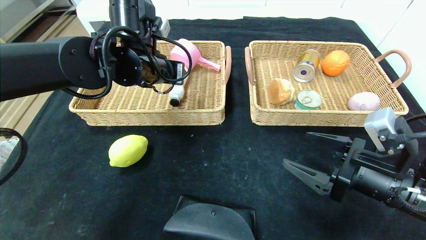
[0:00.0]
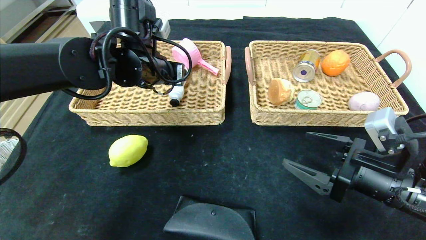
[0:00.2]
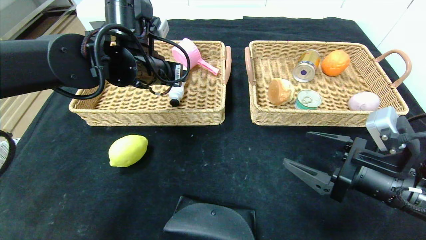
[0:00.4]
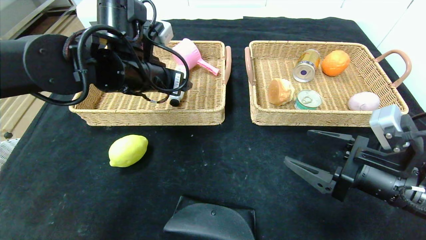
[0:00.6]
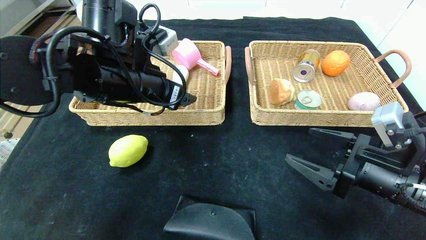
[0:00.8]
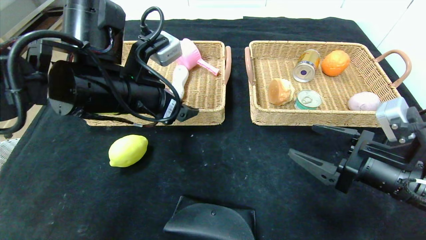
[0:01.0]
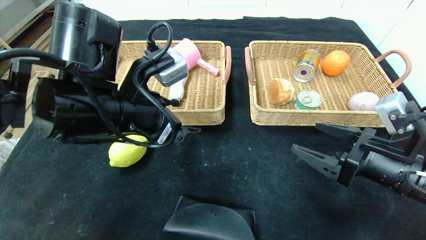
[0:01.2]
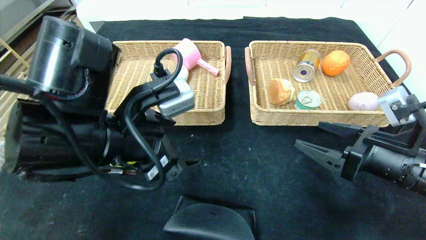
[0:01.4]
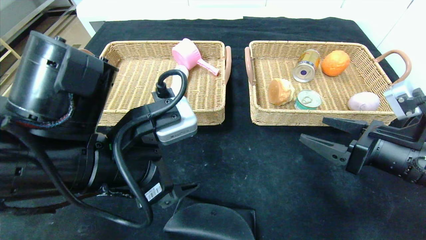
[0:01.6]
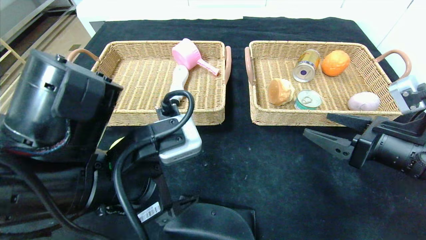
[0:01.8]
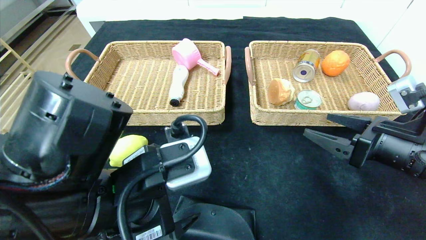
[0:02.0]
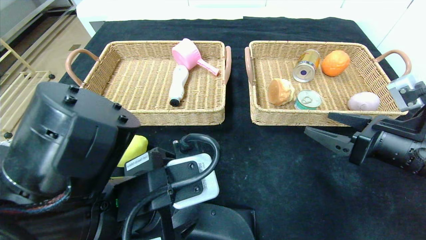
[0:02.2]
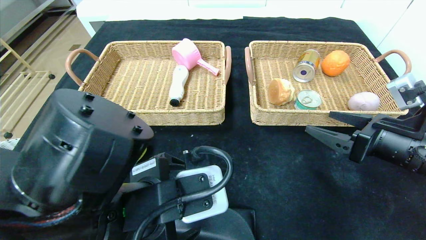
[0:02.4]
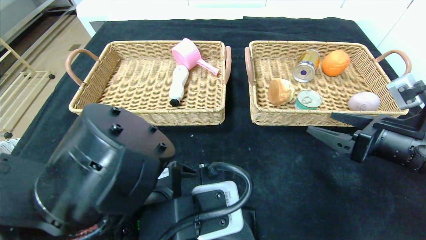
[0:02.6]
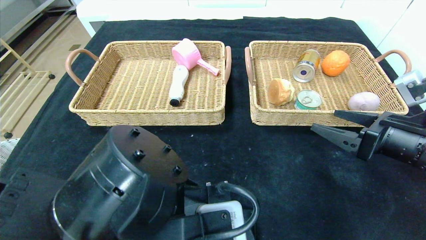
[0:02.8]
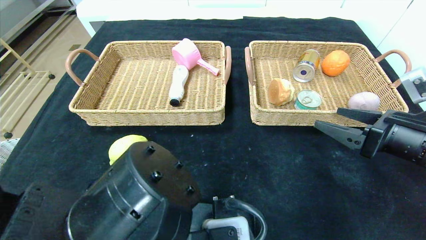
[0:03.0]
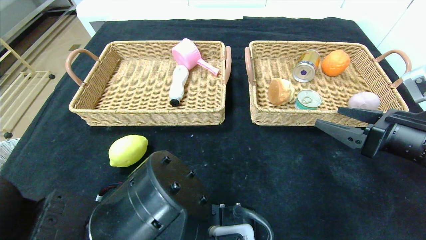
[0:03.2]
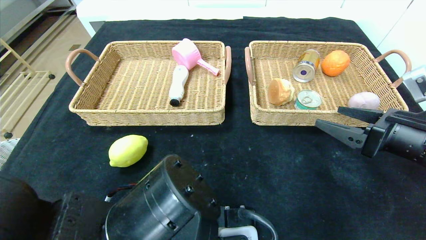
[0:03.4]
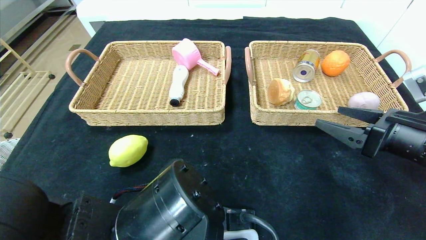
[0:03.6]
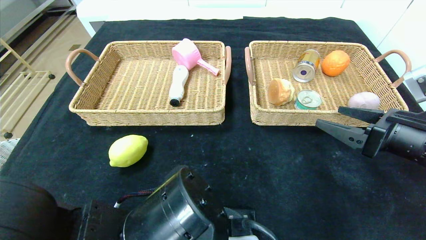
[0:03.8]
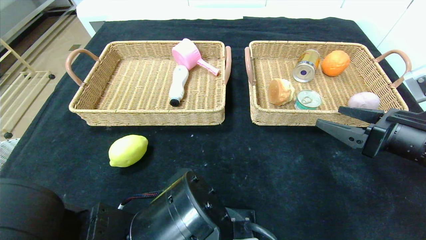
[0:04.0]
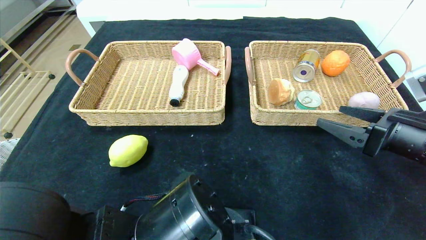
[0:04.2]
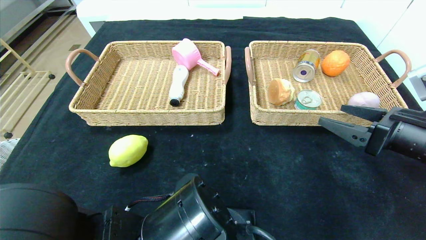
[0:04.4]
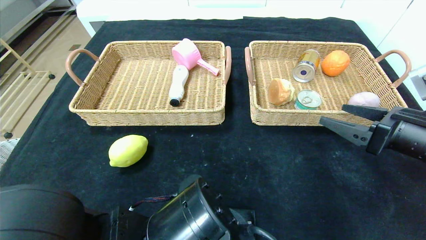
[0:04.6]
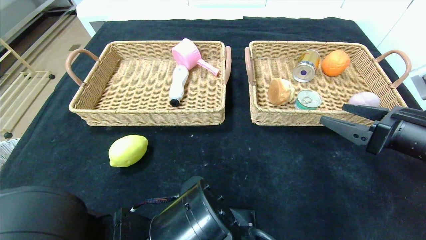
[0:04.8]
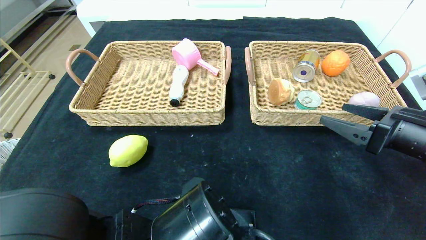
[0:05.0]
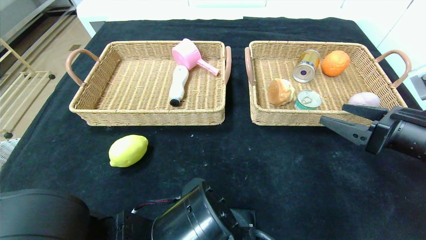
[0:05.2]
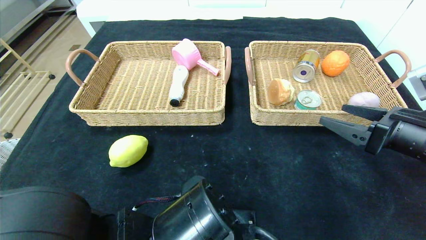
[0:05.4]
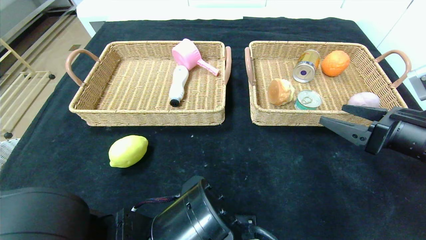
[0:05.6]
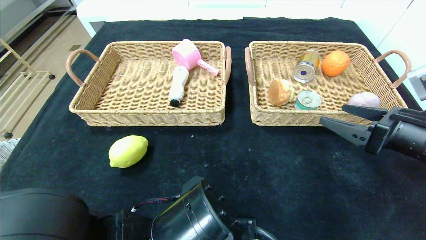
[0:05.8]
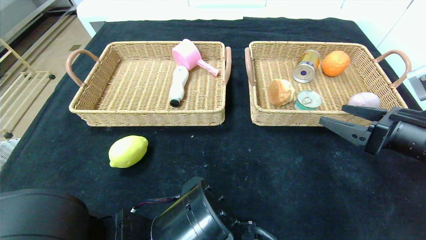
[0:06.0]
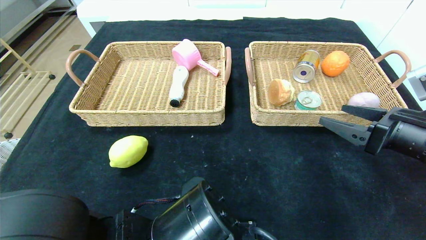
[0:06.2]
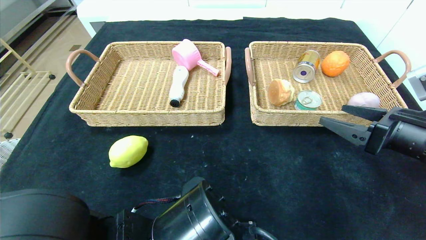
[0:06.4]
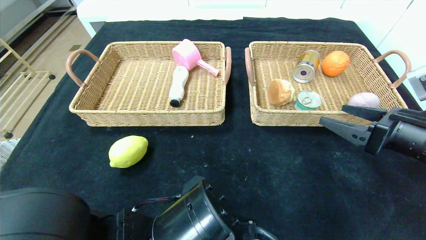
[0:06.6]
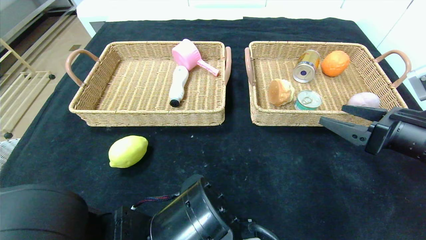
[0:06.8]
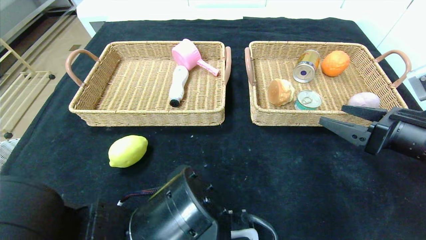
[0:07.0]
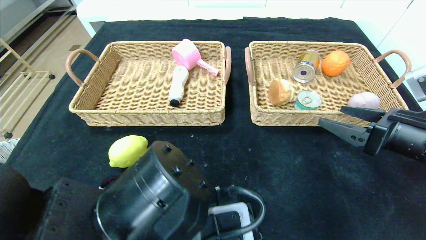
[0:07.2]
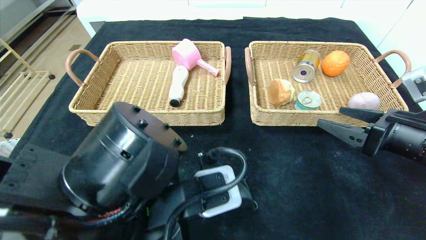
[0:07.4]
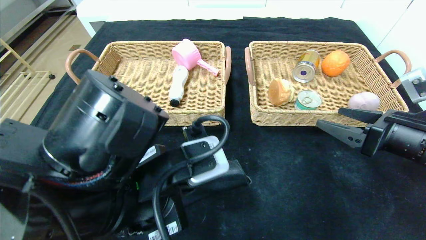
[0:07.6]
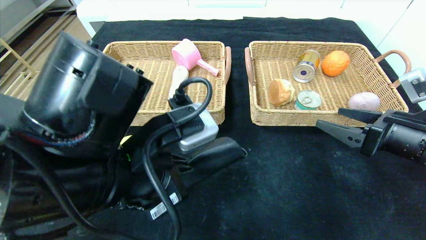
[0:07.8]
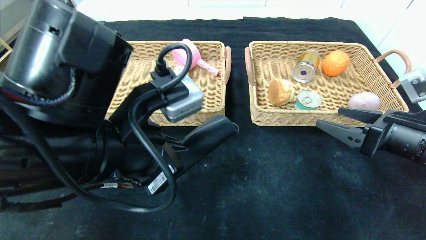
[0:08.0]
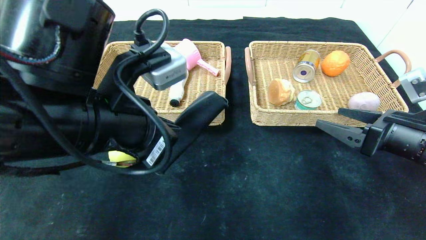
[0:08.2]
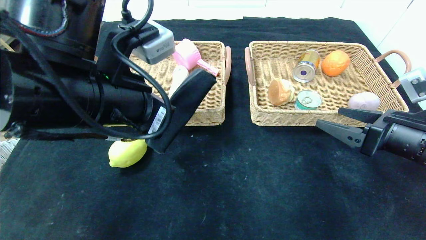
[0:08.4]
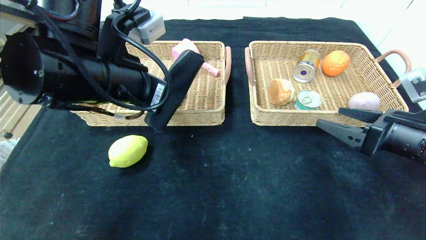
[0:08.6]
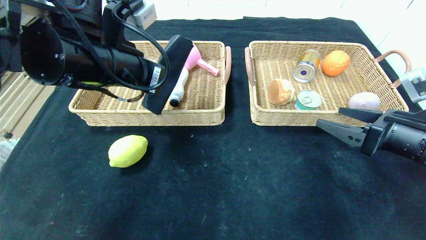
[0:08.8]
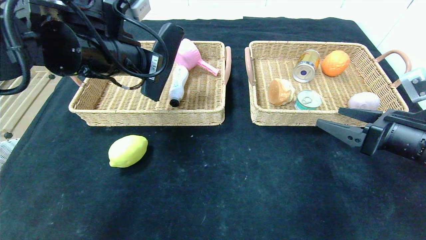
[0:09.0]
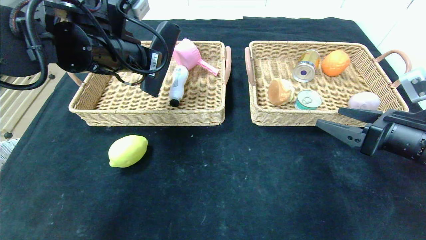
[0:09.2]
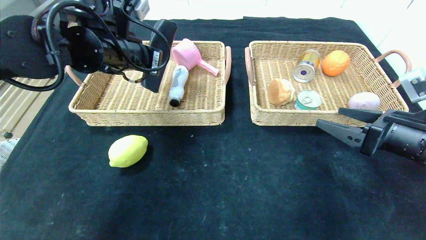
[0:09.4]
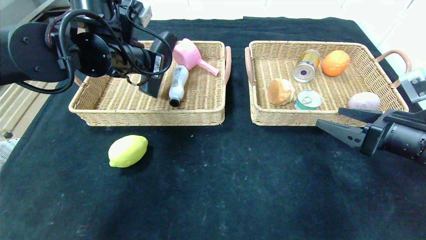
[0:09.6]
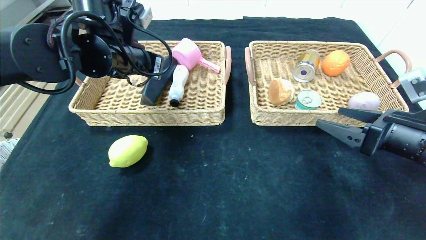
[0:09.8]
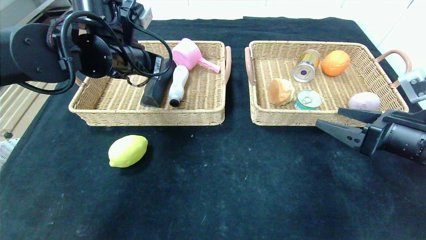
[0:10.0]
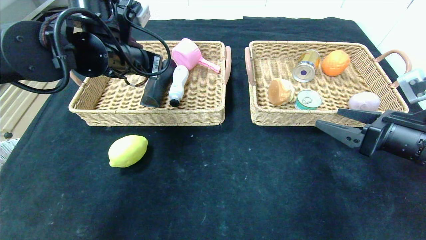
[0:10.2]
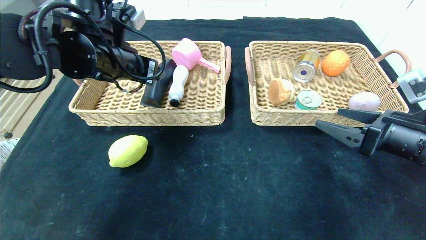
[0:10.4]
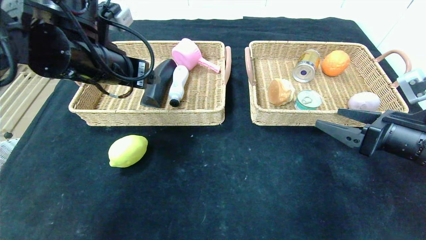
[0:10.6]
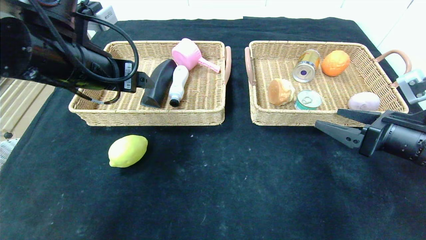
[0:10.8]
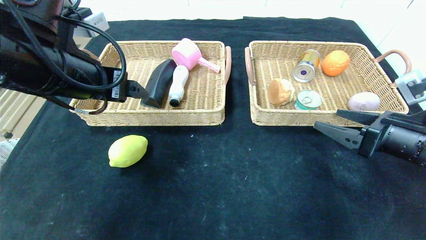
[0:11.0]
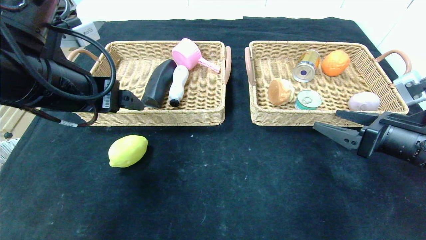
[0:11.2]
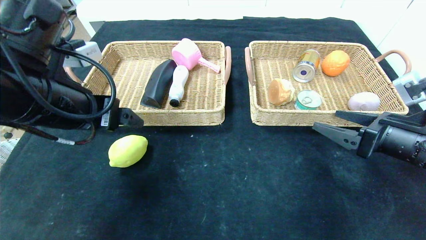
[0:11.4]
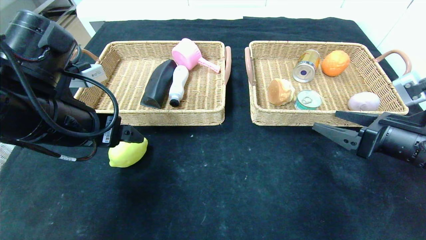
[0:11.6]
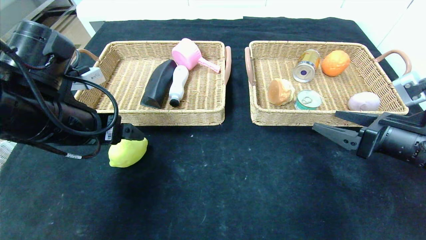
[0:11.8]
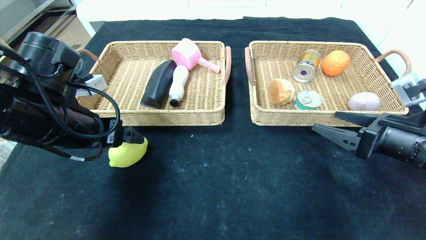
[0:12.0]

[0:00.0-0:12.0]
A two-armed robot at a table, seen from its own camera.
Step, 0:00.0 to 0:10.0: Grasp the glasses case and put it in the left basket.
0:00.0 to 0:01.6: The left gripper travels backward by approximately 20 cm.
0:01.6 to 0:03.0: The left gripper shifts roughly 10 cm backward and downward.
0:03.0 to 0:04.4: The grippers make only small movements.
0:04.4 to 0:06.0: The left gripper closes.
0:06.0 to 0:07.6: The left gripper heads upward, covering approximately 10 cm.
0:07.6 to 0:09.0: The left gripper moves forward, upward and to the left, some 20 cm.
0:09.0 to 0:10.4: The left gripper opens its fingers.
0:10.4 to 0:12.0: The left gripper goes about 10 cm backward, downward and to the left.

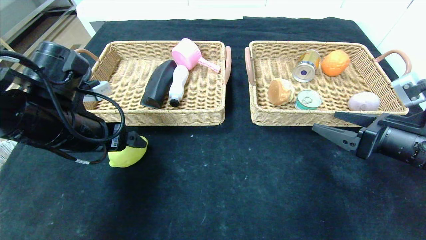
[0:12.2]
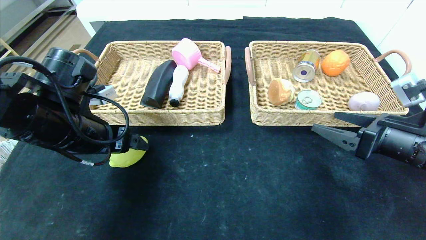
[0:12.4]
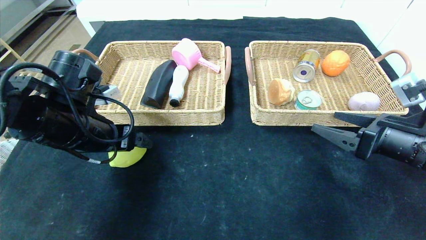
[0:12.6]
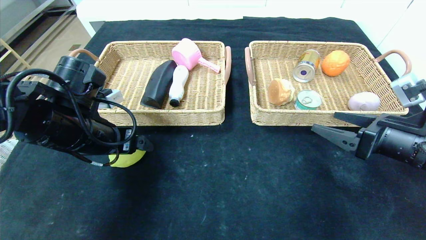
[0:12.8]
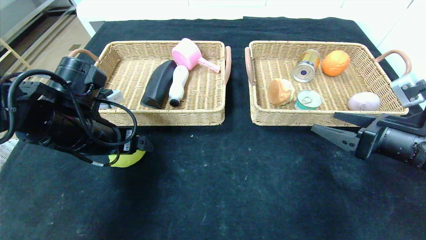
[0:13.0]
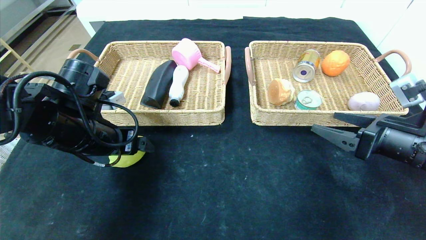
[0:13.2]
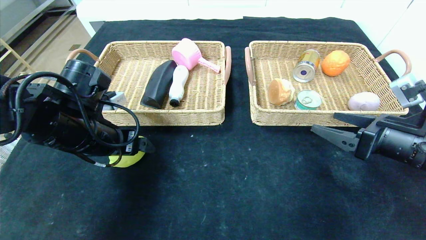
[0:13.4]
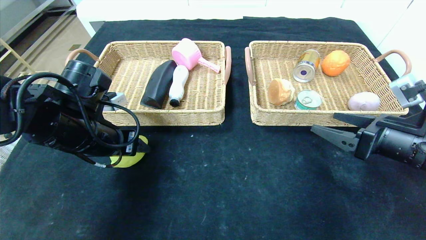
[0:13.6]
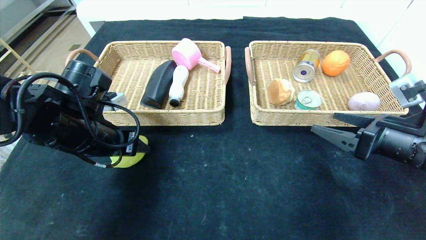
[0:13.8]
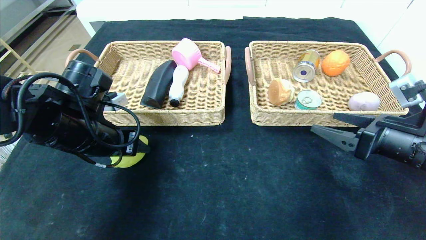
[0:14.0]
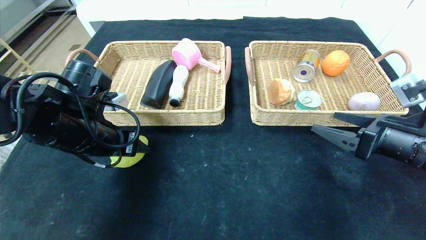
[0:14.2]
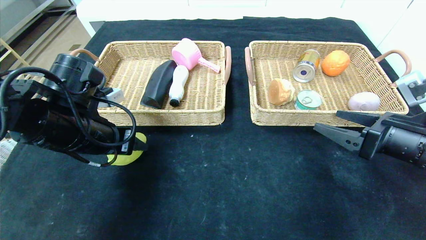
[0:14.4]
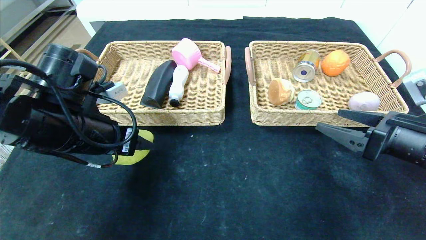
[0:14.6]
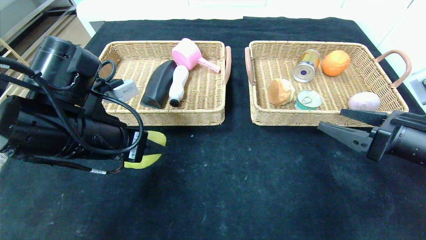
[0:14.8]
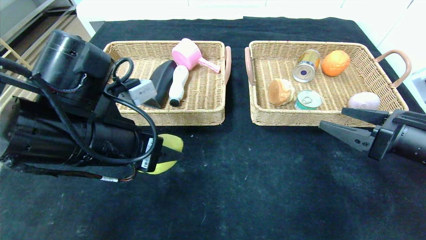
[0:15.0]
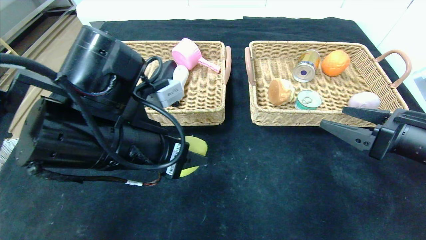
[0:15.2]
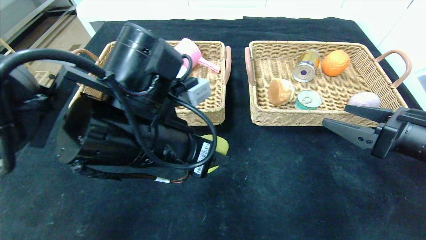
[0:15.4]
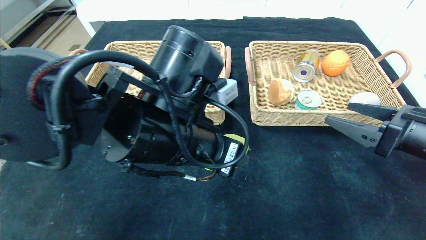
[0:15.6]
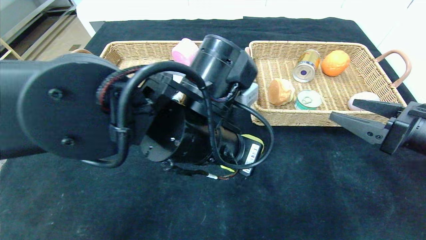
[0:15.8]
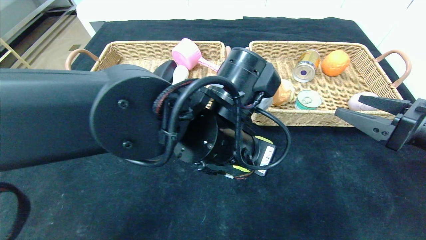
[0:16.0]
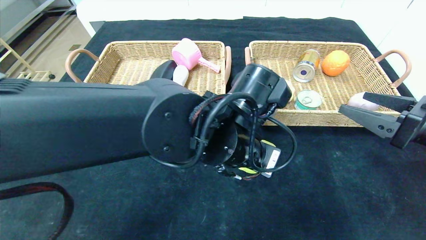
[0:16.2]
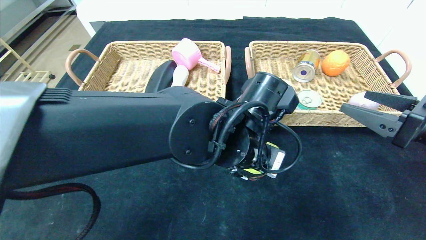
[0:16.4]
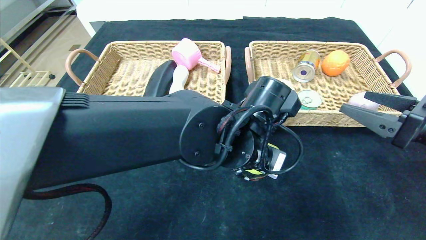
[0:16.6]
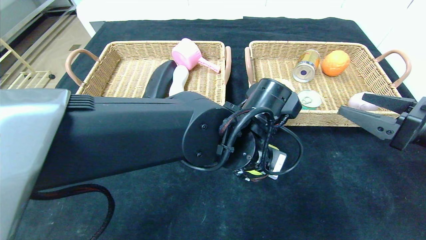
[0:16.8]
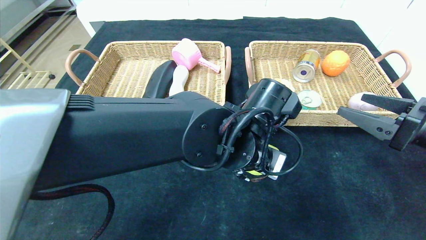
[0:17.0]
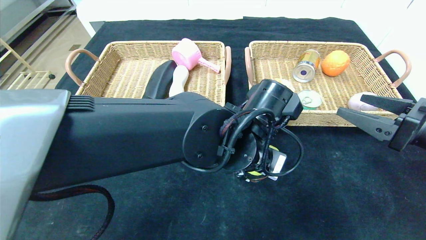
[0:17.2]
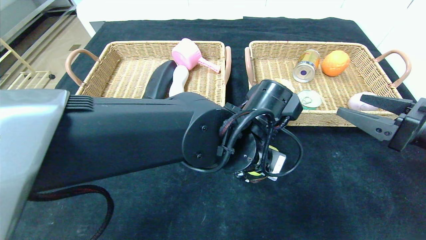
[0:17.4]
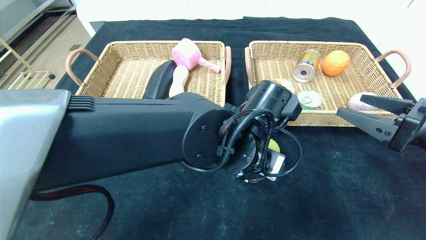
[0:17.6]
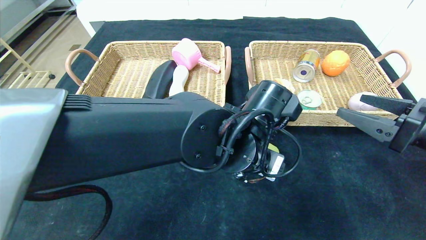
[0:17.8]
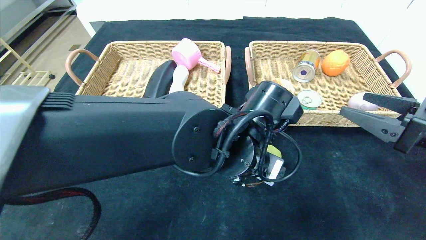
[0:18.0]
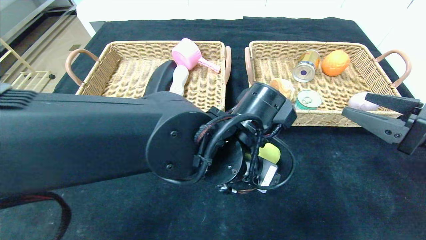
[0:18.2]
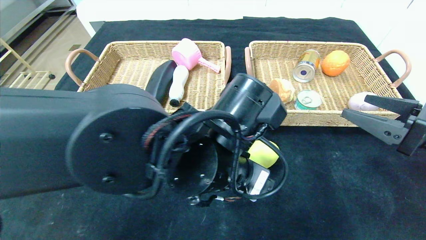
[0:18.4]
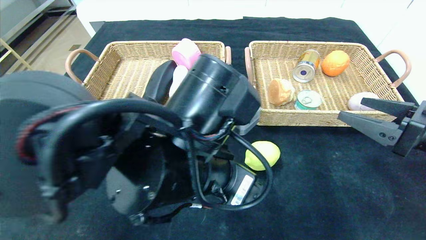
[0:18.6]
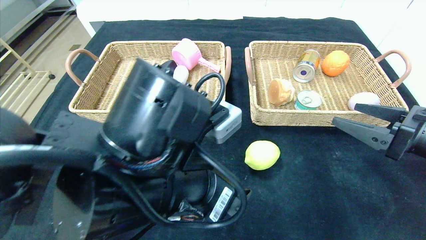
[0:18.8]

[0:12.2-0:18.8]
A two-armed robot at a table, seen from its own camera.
Step, 0:12.2 to 0:18.2: Place the lemon and put it in the center of the table.
0:12.2 to 0:13.8: The left gripper closes its fingers.
0:13.8 to 0:15.4: The left gripper shifts some 15 cm to the right and backward.
0:15.4 to 0:17.2: The left gripper moves to the right and downward, approximately 15 cm.
0:17.2 to 0:18.8: The left gripper is displaced to the left and backward by roughly 15 cm, and opens its fingers.
